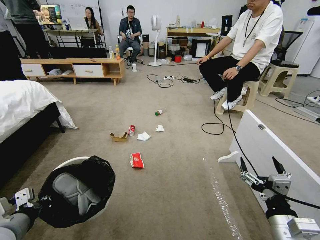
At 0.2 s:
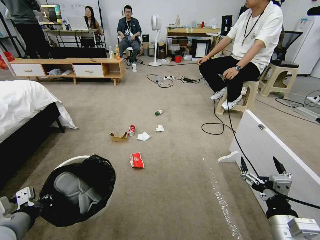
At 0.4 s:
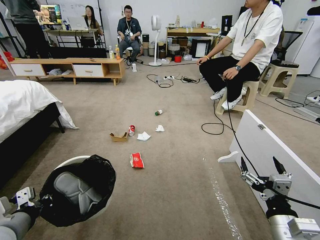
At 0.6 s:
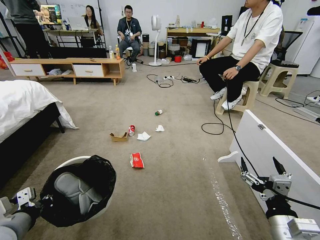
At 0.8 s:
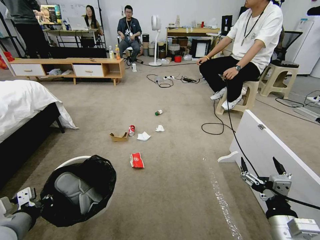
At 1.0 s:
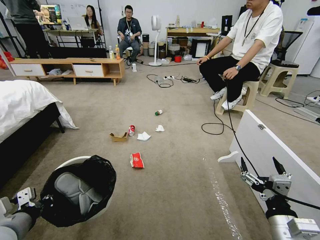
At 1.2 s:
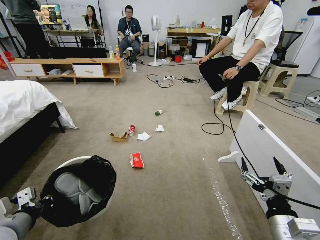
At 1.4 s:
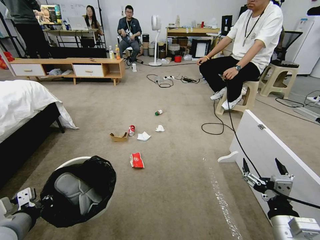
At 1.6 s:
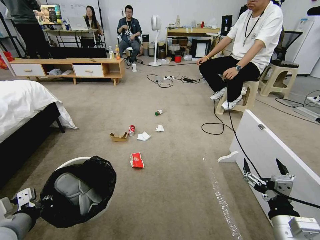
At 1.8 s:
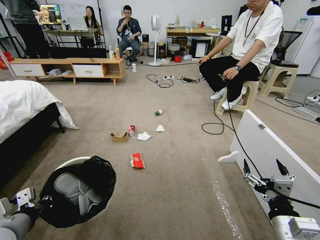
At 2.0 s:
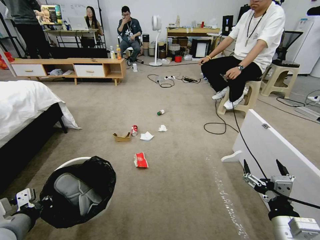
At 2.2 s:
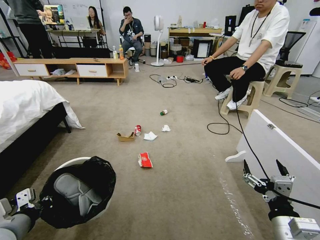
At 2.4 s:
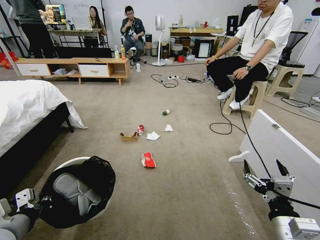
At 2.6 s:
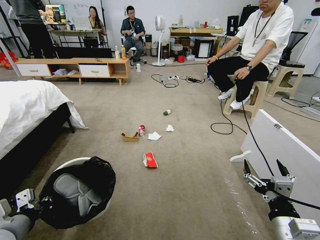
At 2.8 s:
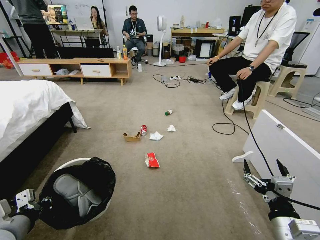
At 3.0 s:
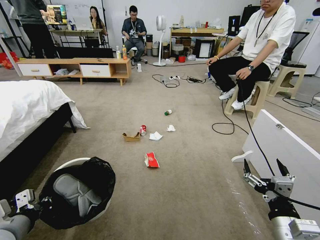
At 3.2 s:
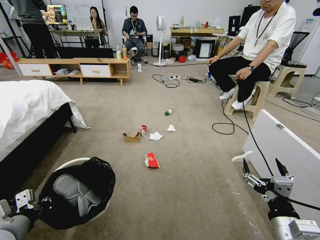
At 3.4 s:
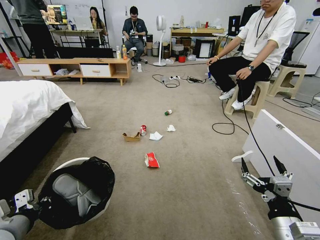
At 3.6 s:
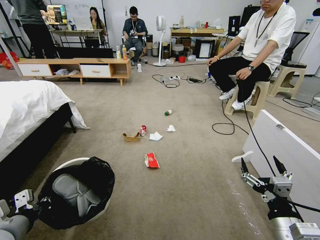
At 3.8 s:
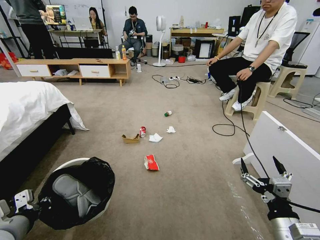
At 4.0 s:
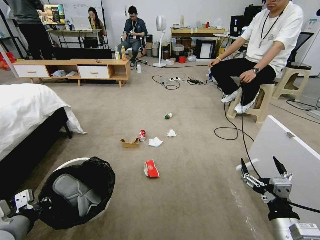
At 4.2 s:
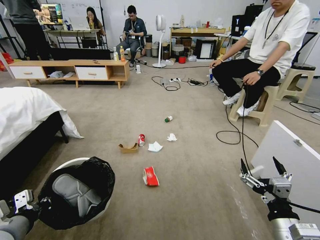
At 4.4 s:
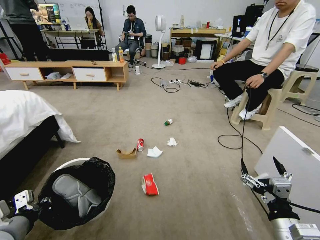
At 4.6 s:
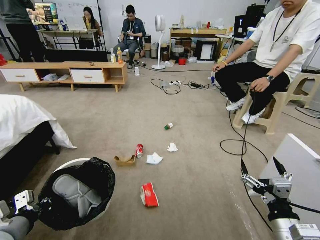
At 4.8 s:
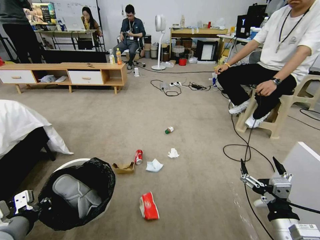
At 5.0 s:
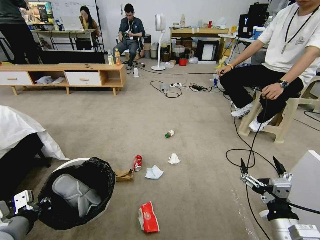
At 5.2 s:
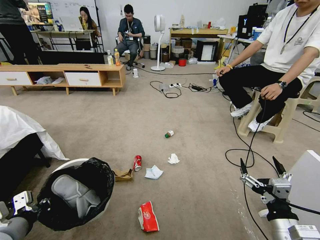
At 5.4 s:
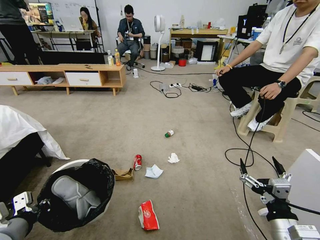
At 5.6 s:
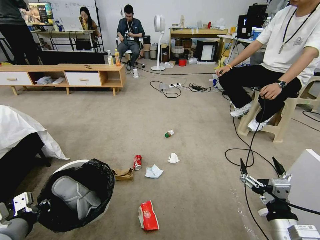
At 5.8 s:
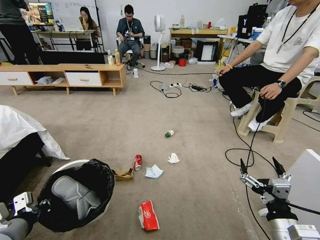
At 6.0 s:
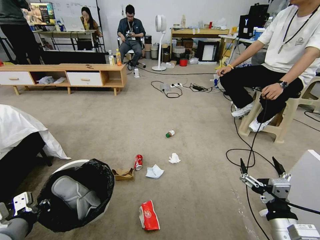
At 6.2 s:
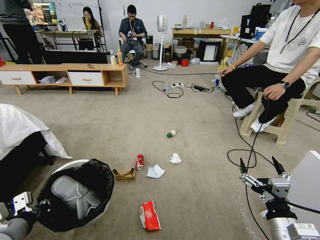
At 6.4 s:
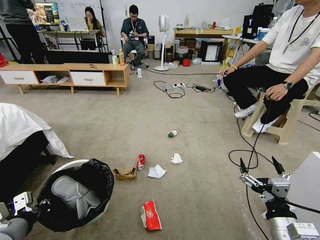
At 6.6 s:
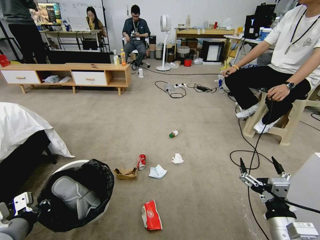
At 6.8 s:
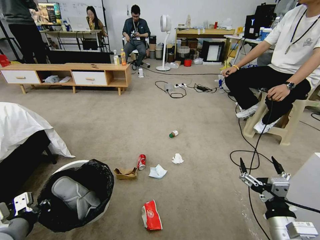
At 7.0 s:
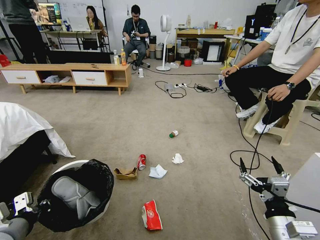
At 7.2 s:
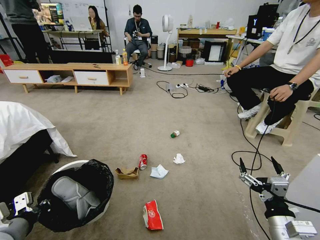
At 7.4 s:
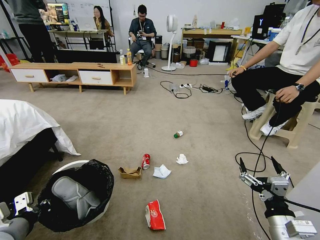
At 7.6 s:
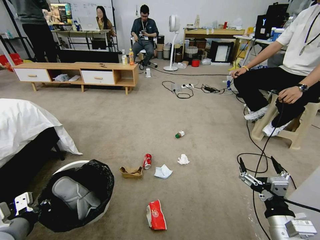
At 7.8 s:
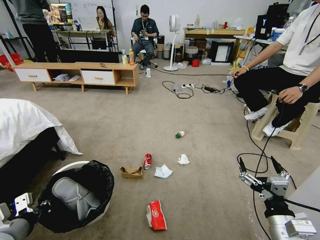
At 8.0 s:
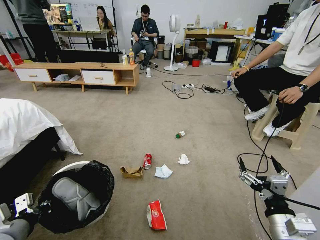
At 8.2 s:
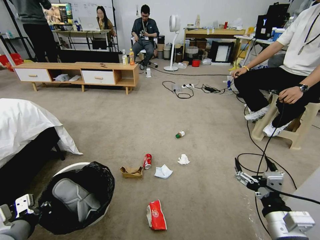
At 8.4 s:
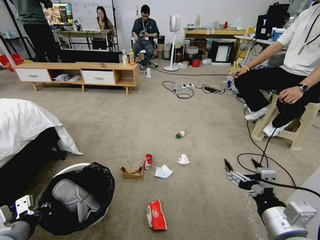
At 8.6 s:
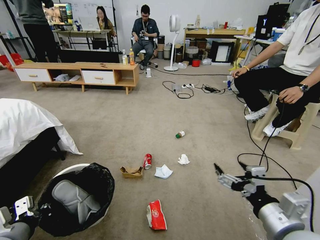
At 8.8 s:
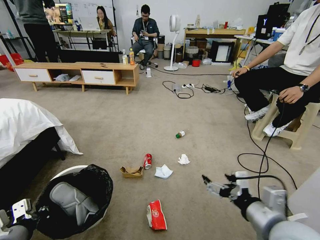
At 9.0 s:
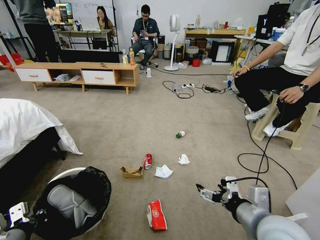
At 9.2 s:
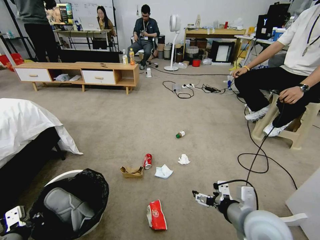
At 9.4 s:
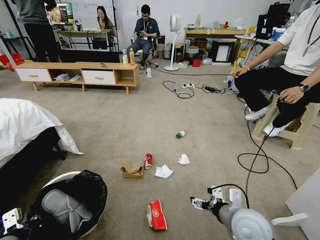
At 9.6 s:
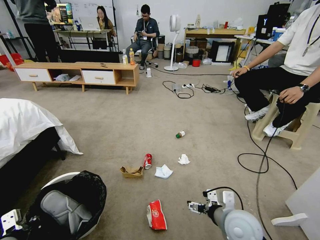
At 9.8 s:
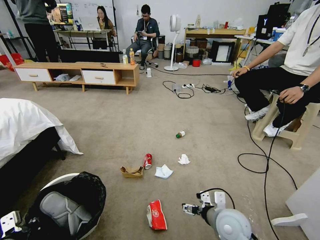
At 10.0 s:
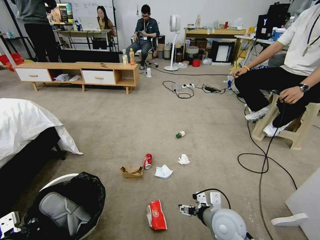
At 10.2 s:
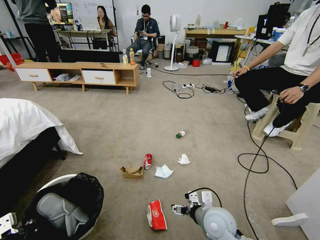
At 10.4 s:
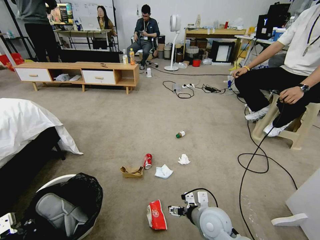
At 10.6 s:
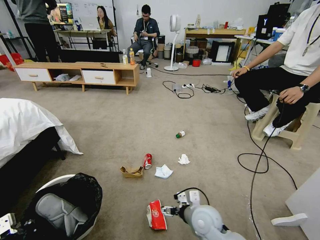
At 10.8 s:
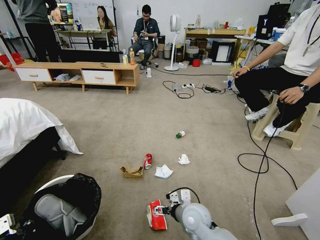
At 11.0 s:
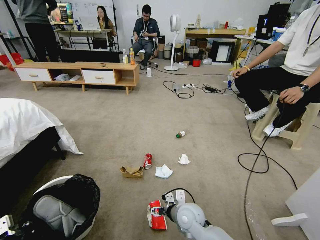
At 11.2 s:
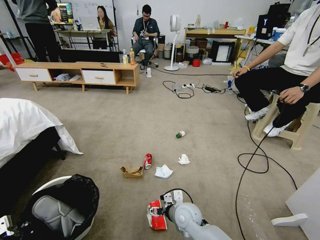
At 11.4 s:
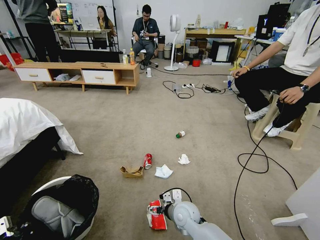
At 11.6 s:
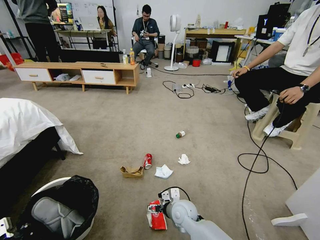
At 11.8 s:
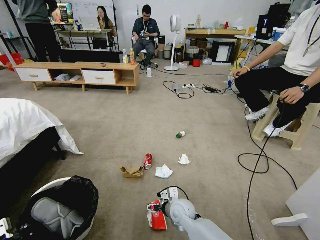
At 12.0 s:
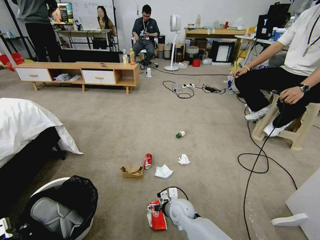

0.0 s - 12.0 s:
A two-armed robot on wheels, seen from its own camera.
Task of the whole recording: Pick up the trash bin and place the garbage on the floor into it.
7.6 s - 9.0 s: The right gripper is displaced upward and to the left by some 10 cm.
9.0 s - 10.4 s: The right gripper is displaced downward, to the left and forward by some 20 cm.
10.4 s - 12.0 s: The right gripper goes approximately 15 cm to the left, downward and forward.

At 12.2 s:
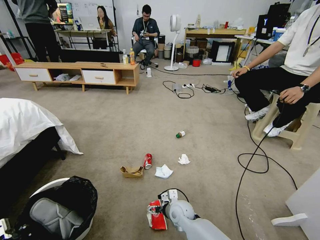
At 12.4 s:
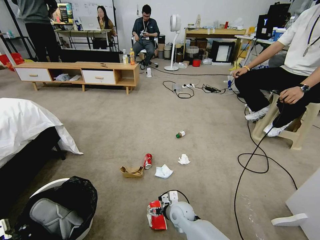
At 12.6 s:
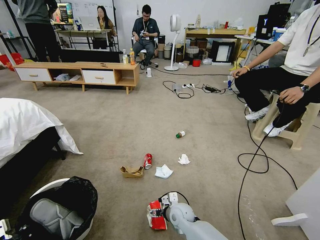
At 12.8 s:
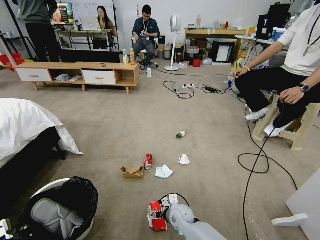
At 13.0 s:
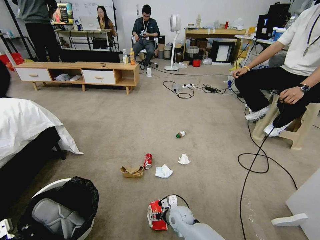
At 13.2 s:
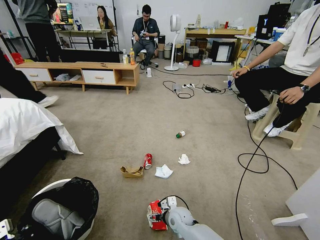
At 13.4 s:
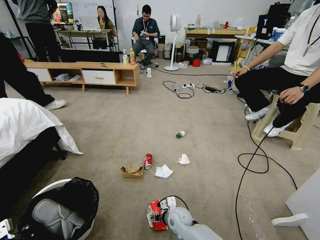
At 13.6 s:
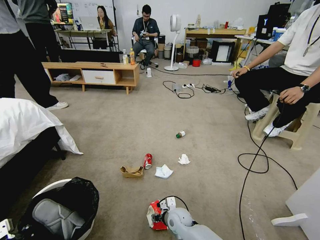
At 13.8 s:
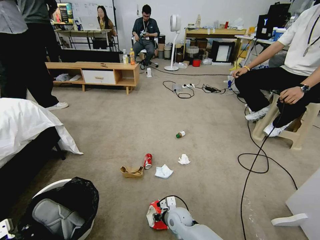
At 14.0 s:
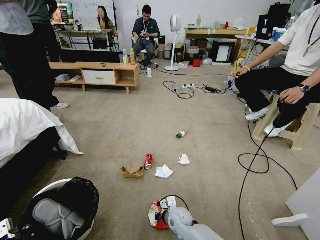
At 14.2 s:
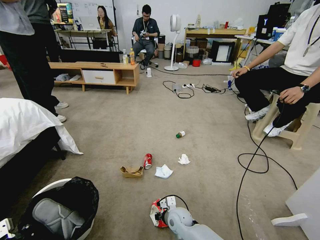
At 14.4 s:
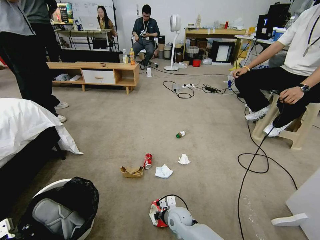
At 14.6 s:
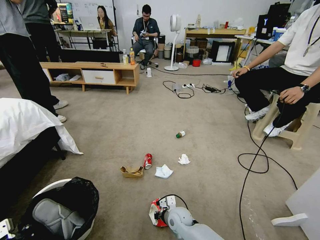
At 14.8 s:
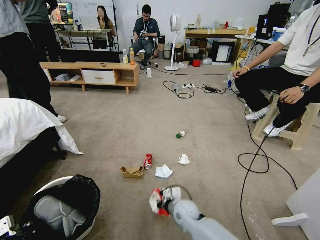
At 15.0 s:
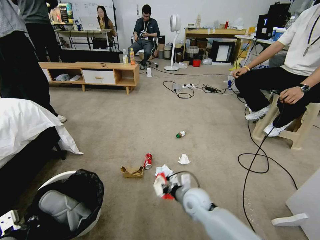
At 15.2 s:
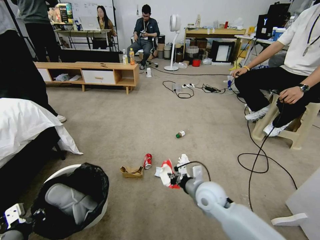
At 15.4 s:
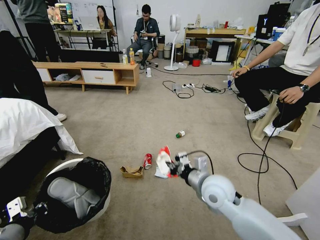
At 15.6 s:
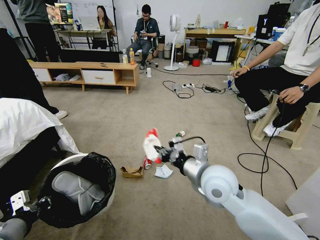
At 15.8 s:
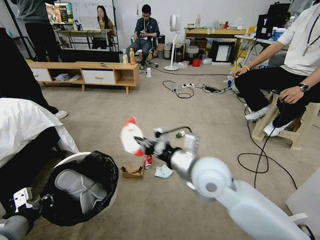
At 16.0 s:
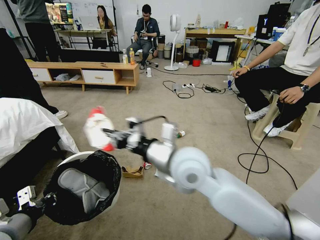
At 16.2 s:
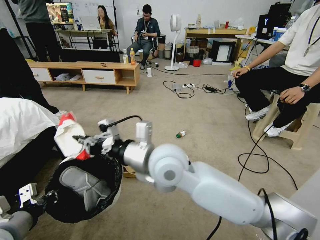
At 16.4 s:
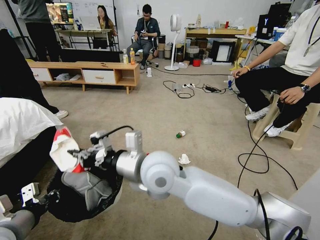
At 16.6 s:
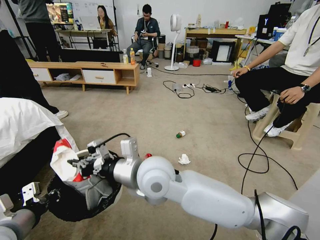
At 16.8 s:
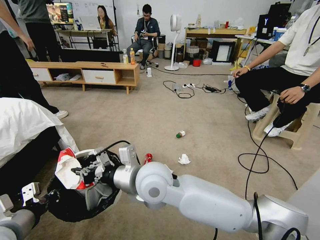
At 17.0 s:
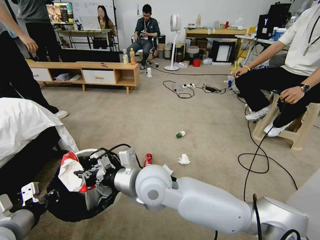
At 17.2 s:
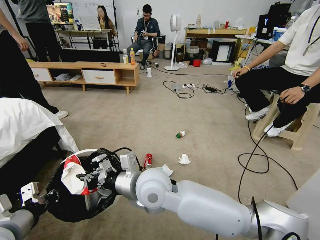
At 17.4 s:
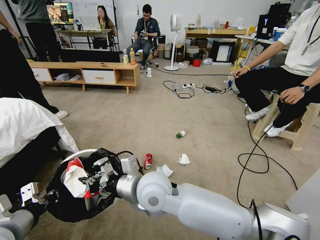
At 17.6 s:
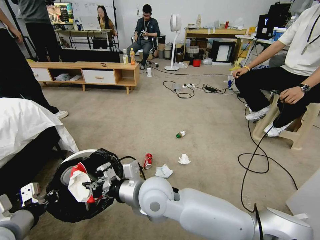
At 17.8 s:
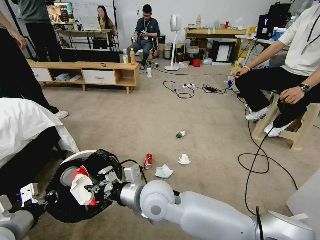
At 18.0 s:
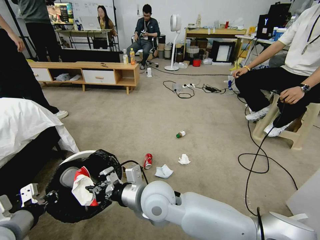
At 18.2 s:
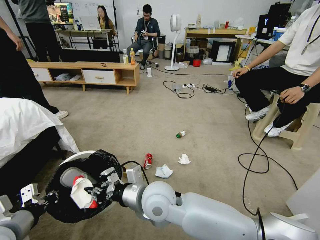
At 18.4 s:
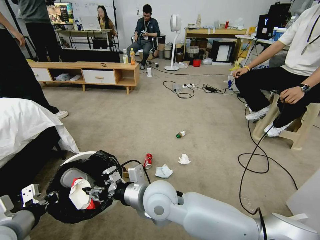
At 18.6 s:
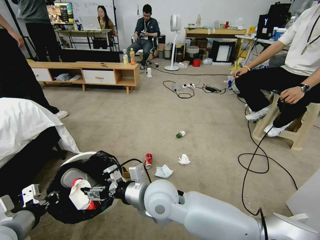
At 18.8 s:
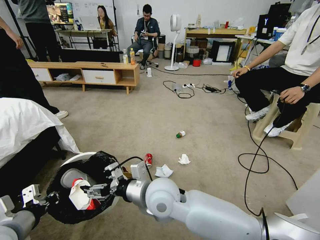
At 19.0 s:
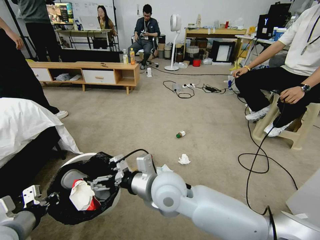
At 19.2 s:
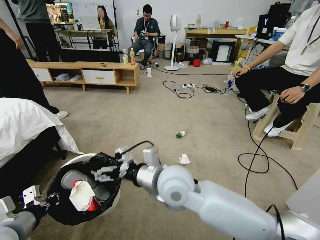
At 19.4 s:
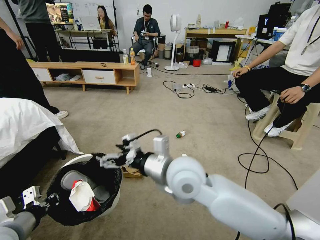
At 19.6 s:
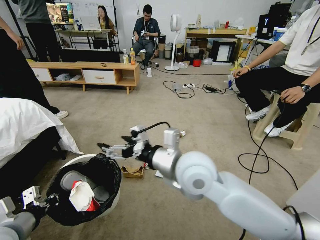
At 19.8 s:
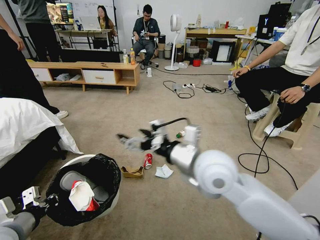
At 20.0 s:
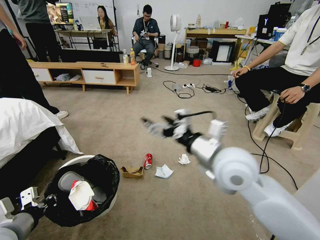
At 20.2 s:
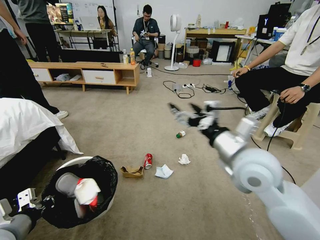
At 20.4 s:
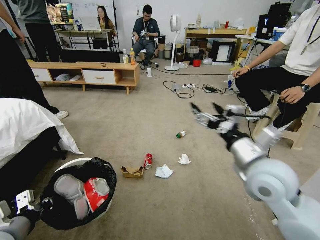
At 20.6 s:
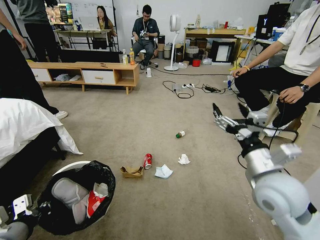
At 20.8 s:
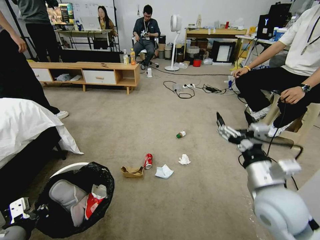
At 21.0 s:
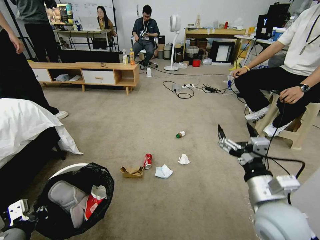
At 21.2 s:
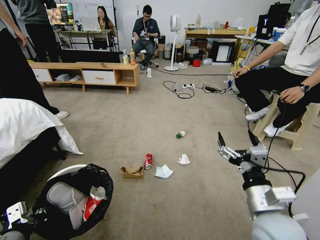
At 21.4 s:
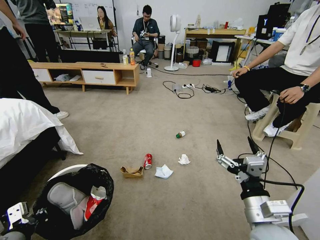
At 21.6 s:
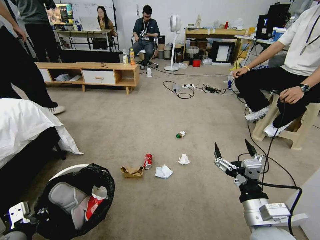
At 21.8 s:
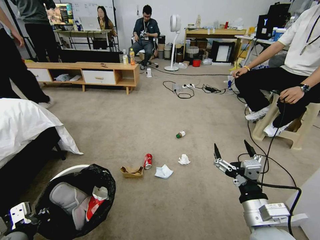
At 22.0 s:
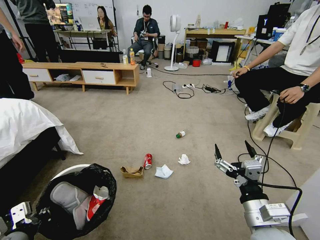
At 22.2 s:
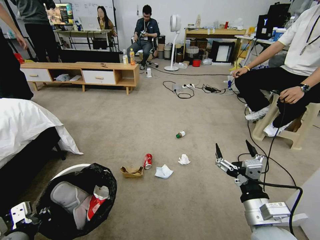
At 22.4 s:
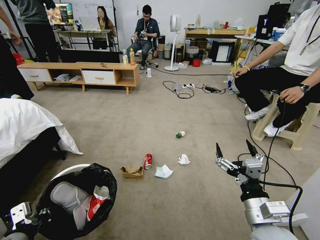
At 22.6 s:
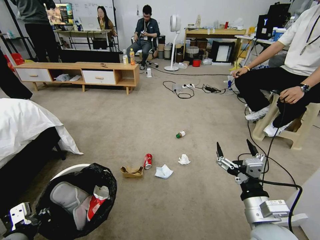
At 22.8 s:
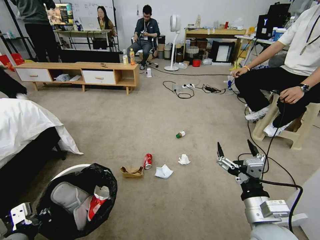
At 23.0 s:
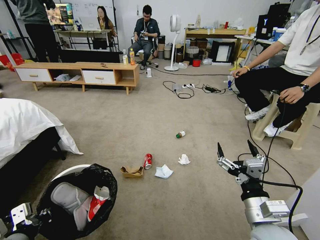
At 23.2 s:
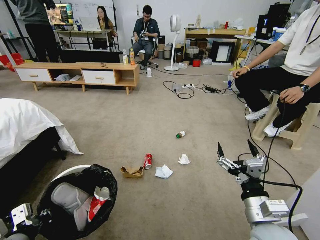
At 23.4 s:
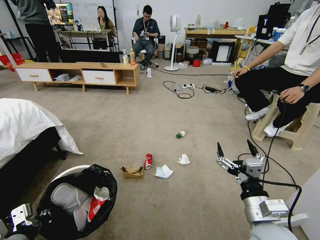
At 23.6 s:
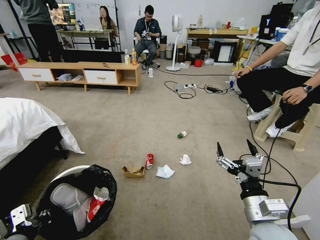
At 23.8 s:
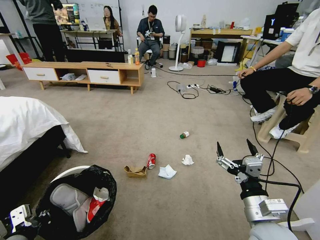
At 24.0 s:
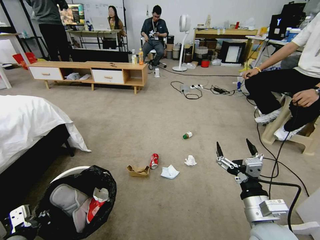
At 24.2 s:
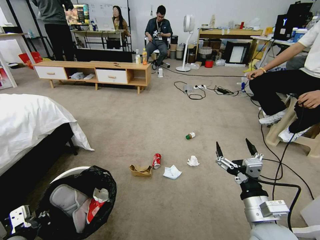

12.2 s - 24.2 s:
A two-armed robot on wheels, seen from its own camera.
Task of the whole recording: Pick up the trash bin and place the garbage on the floor into it.
12.2 s - 13.8 s: The right gripper closes its fingers.
13.8 s - 15.2 s: The right gripper heads upward and to the right, covering some 20 cm, and closes its fingers.
15.2 s - 16.6 s: The right gripper travels to the left and upward by about 25 cm. Meanwhile the left gripper changes place by roughly 5 cm.
16.6 s - 18.2 s: The right gripper shifts some 10 cm downward.
18.2 s - 19.8 s: The right gripper goes about 15 cm to the right and upward, and opens up.
19.8 s - 21.2 s: The right gripper goes roughly 20 cm to the right, downward and backward.
21.2 s - 22.6 s: There are only small adjustments of the grippers.
